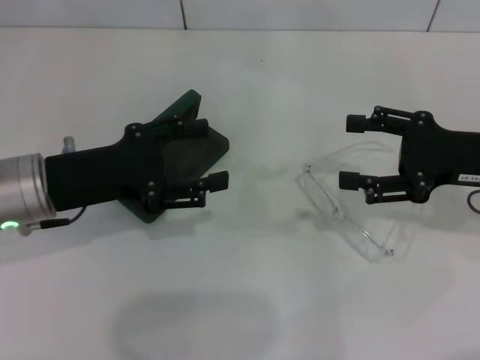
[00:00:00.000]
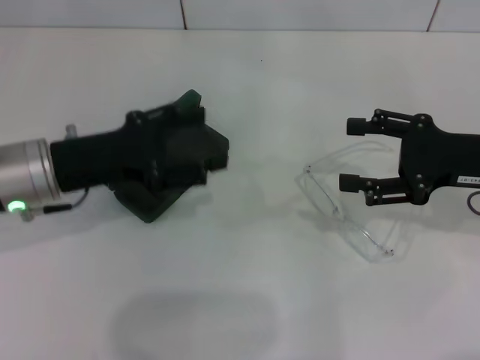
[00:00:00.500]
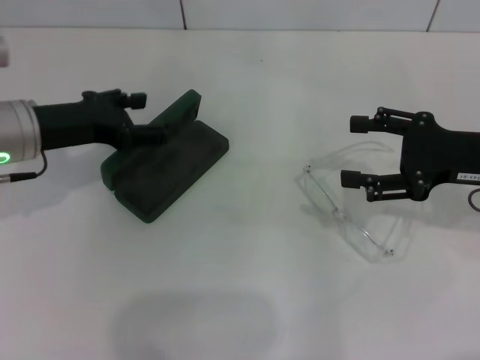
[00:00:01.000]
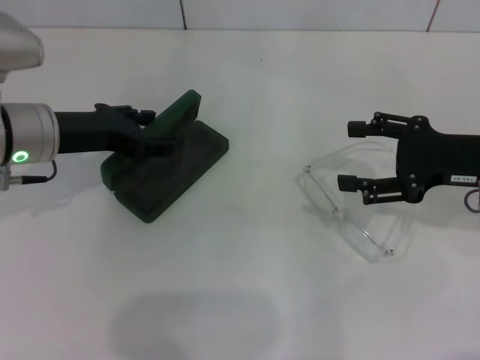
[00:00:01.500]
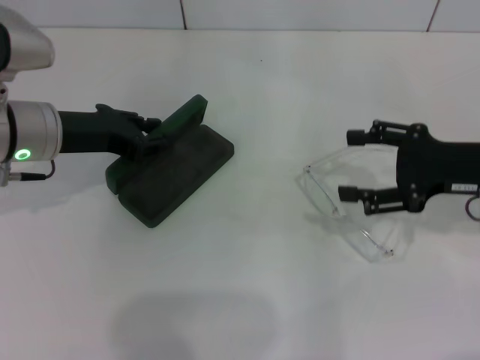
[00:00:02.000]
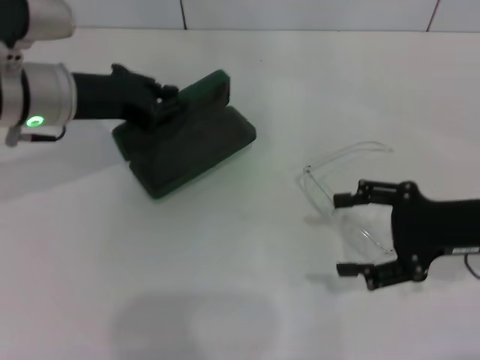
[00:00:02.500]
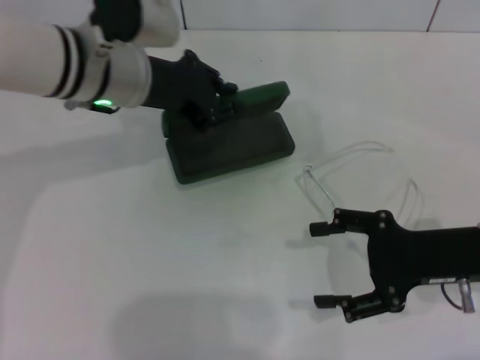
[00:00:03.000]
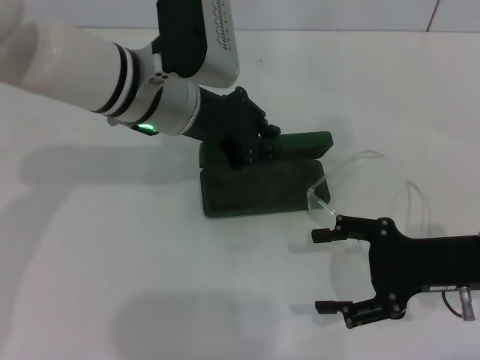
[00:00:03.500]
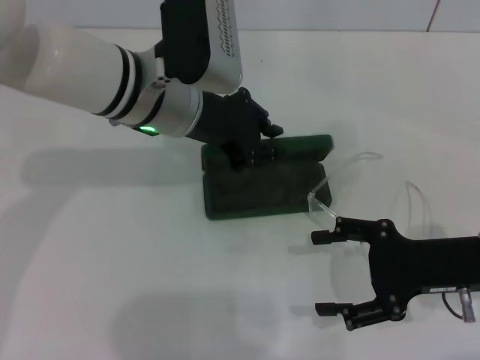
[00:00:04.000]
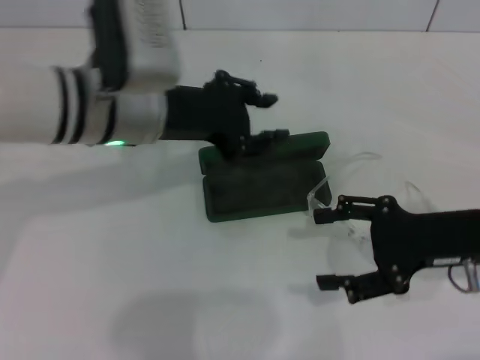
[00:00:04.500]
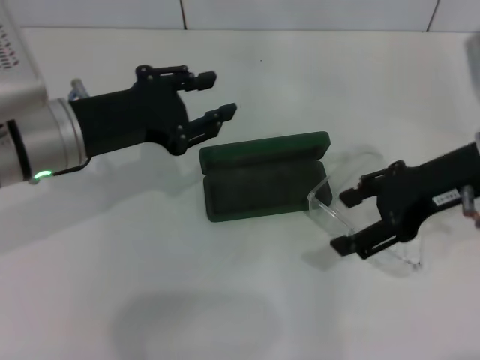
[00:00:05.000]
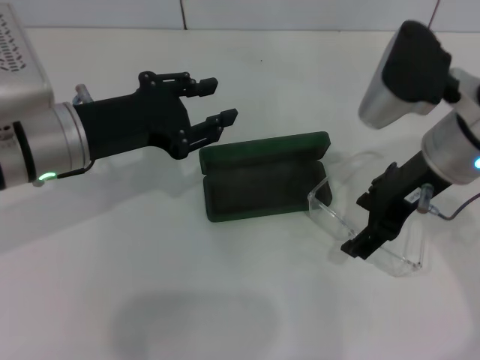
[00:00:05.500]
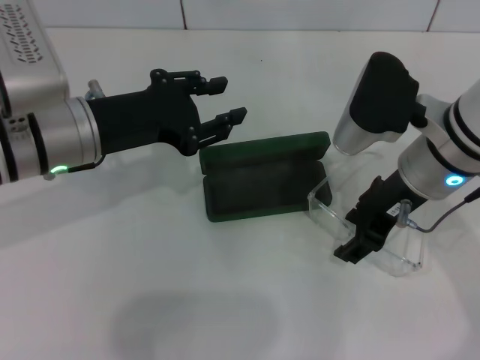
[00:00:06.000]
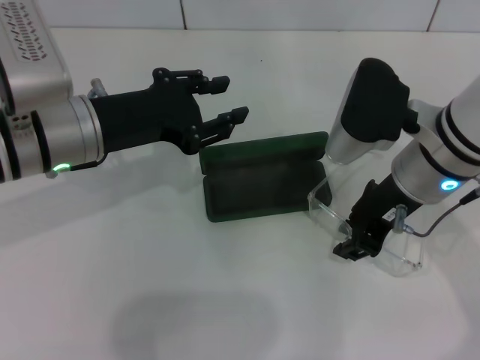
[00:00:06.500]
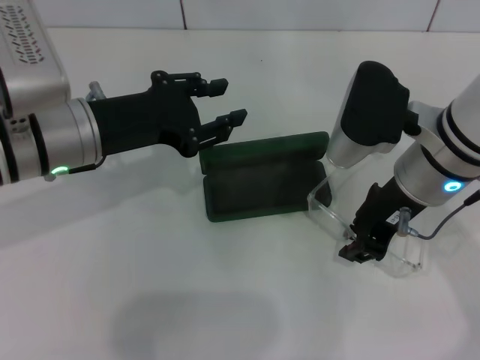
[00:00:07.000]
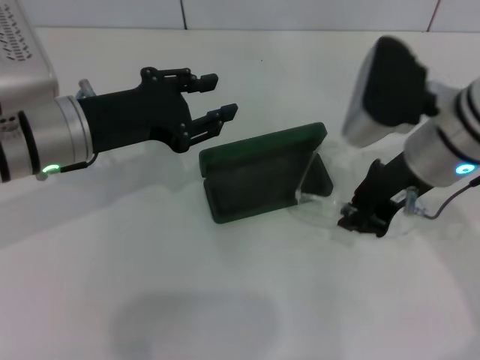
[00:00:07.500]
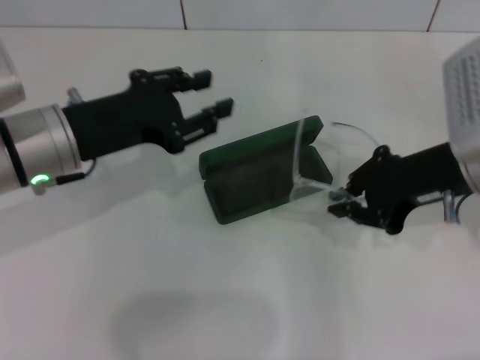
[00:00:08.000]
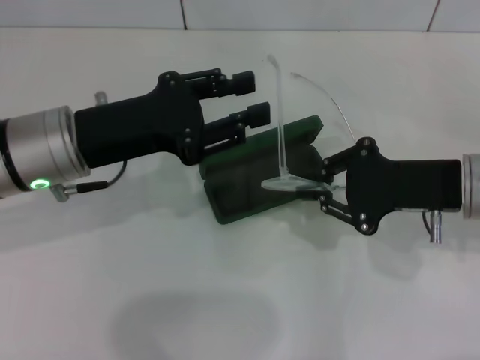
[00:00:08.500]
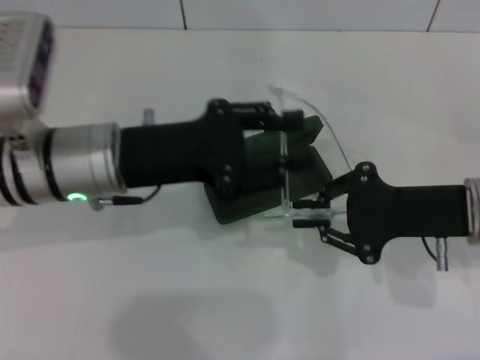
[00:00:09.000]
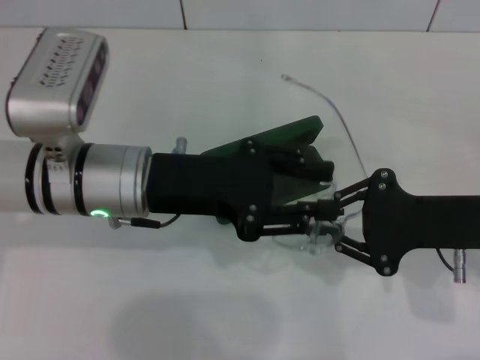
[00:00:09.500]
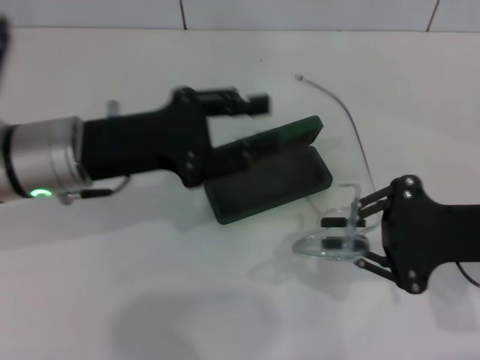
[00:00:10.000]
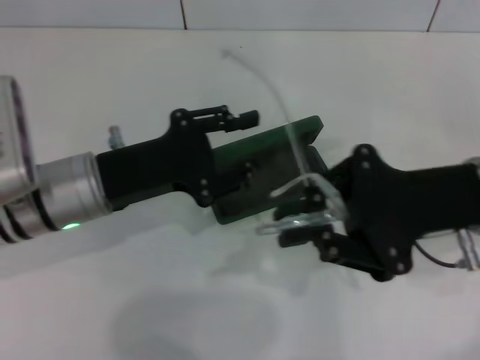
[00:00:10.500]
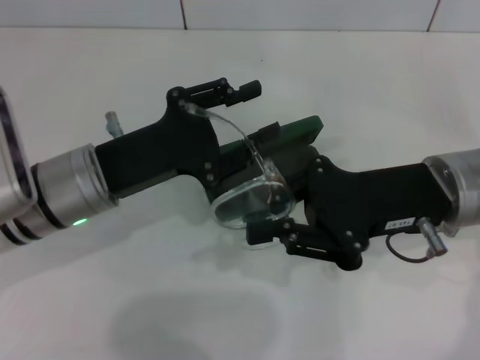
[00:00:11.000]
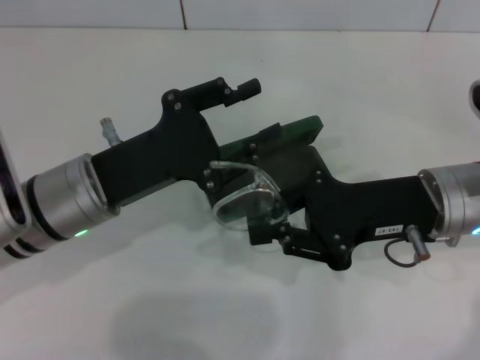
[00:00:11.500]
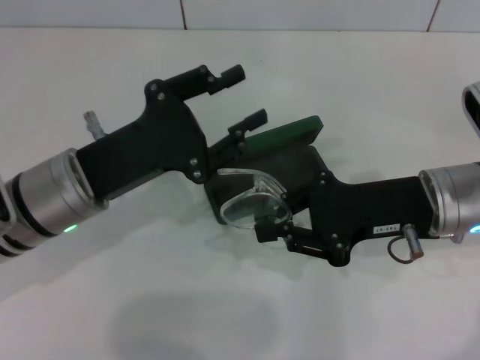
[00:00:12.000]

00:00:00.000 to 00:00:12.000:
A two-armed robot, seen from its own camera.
Step, 00:00:00.000 to 00:00:01.500: Grab the glasses case with your left hand.
Step, 00:00:02.000 to 00:00:04.000: Place the glasses case in the center of the table with your left hand.
Step, 00:00:04.500 to 00:00:07.000: Grab the eyeglass frame with your right hand.
Step, 00:00:07.500 to 00:00:11.500: Fold the frame with your left hand.
00:00:00.000 to 00:00:02.000: The left gripper goes roughly 5 cm forward, and closes up.
00:00:02.000 to 00:00:04.000: The right gripper goes some 5 cm backward. Meanwhile the left gripper shifts approximately 15 cm to the right.
00:00:04.000 to 00:00:06.000: The right gripper heads to the left, upward and forward, covering roughly 15 cm. The left gripper goes some 10 cm to the left.
00:00:06.000 to 00:00:08.000: The right gripper is displaced to the right by roughly 5 cm, and closes its fingers.
00:00:08.000 to 00:00:10.000: The right gripper shifts roughly 5 cm backward.
00:00:10.000 to 00:00:12.000: The right gripper is displaced to the left by approximately 5 cm.

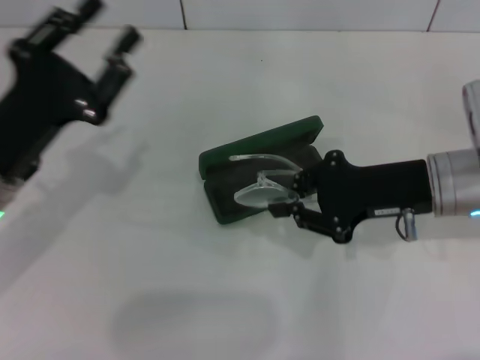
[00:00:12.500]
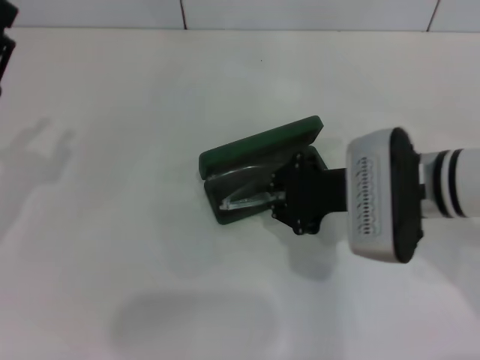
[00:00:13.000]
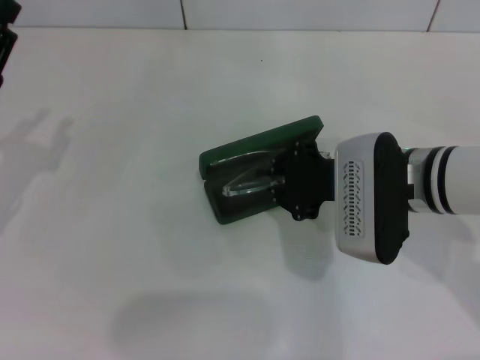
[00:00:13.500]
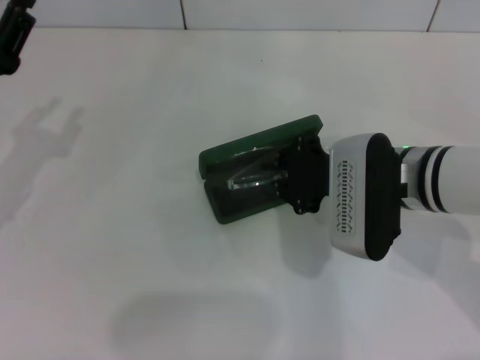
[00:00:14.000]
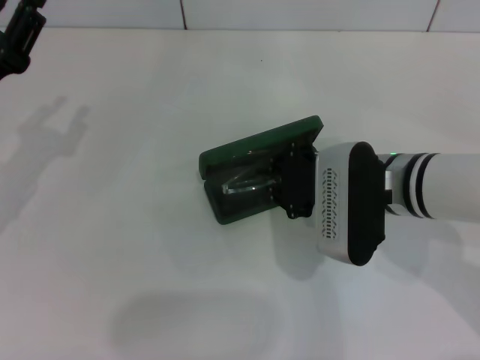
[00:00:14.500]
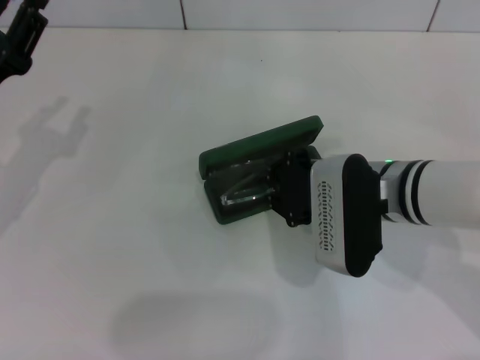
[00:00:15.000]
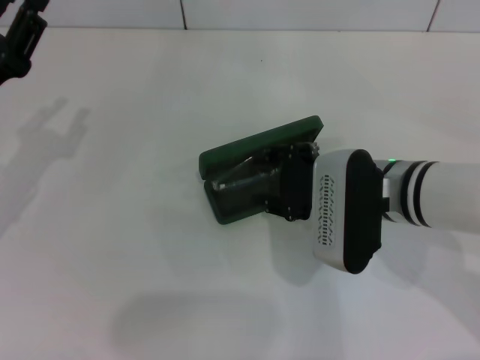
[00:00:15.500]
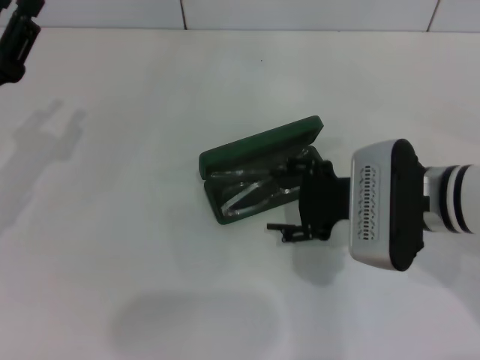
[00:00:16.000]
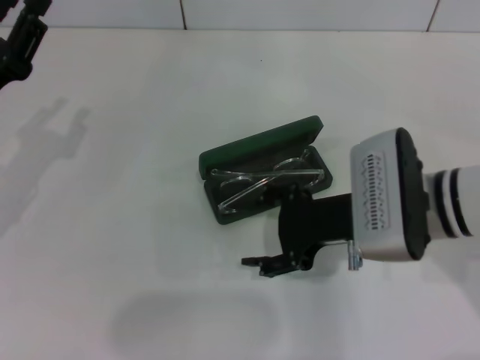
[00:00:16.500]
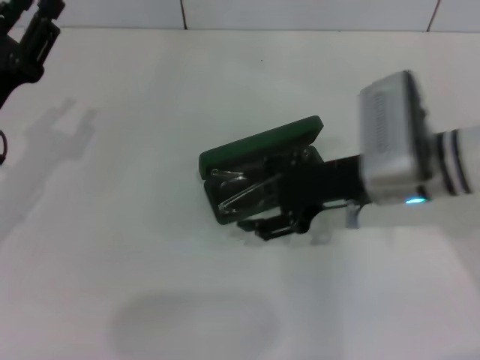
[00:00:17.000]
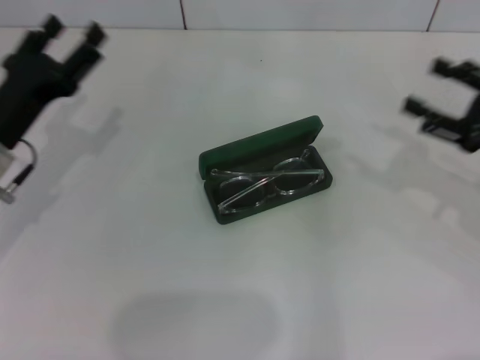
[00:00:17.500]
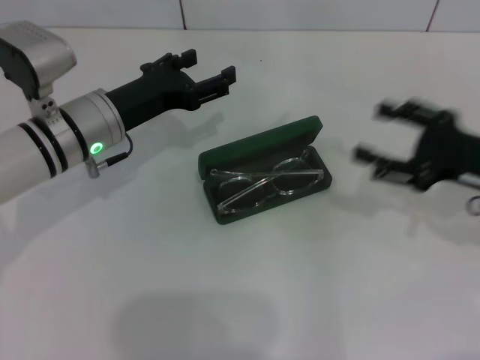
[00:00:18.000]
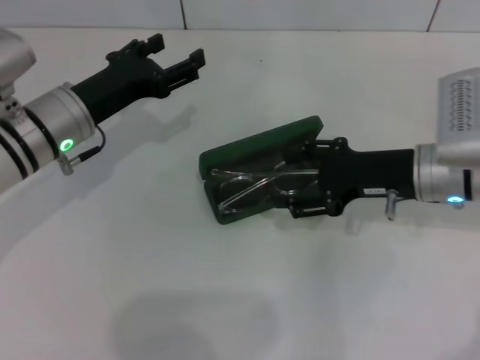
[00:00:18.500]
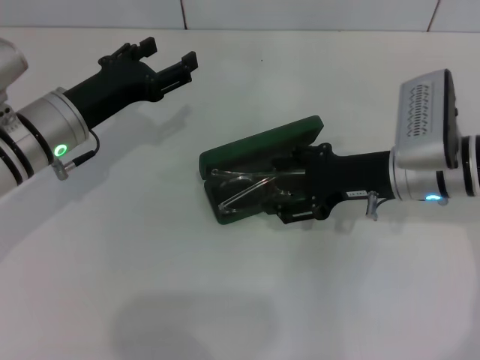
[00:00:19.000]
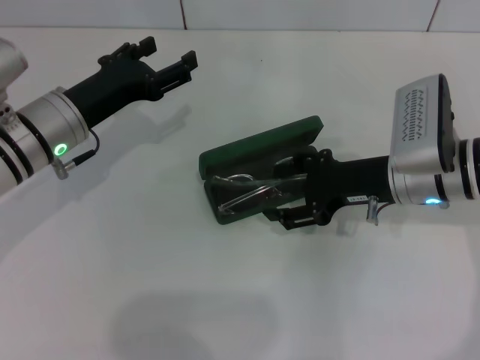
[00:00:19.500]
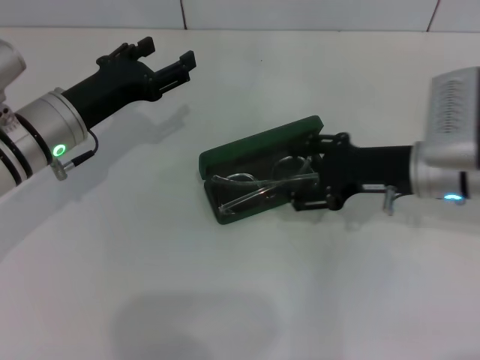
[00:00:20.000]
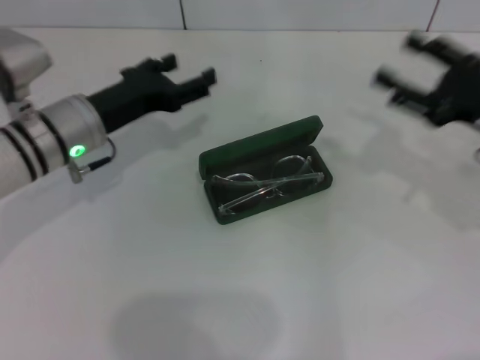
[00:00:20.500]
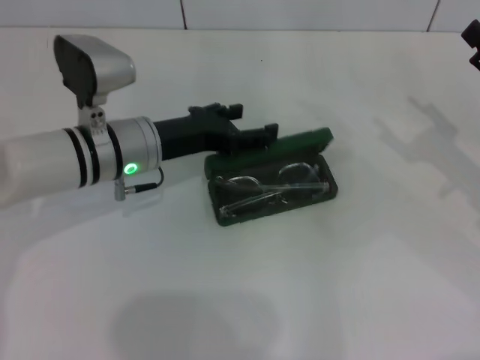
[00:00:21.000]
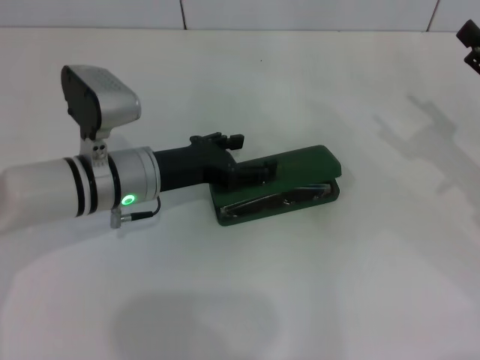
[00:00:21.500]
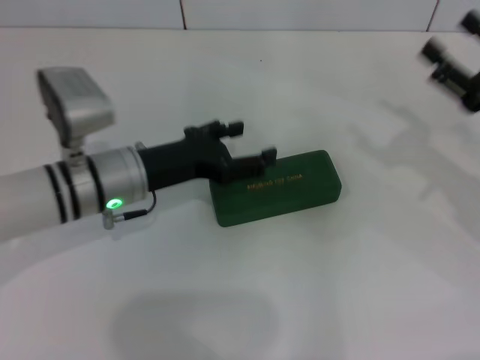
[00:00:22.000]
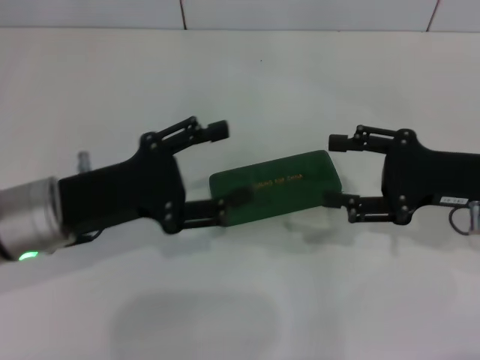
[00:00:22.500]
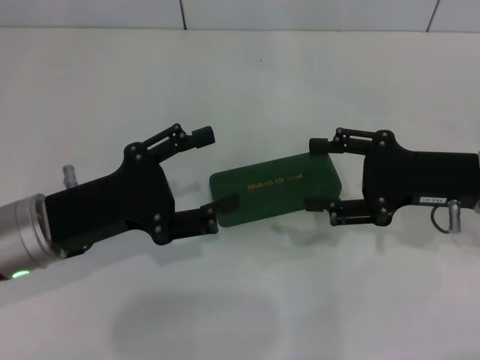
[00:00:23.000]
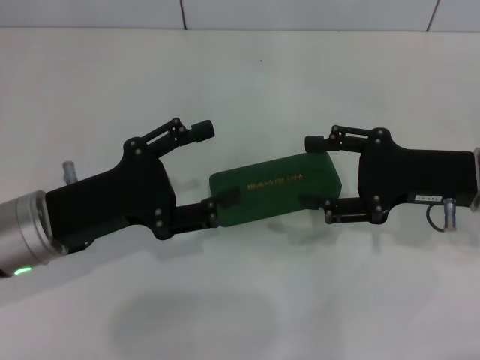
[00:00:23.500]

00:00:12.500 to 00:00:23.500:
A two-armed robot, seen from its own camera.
Step, 00:00:12.500 to 00:00:16.000: Put the glasses into the case with your right hand.
Step, 00:00:17.000 to 00:00:21.500: Close the glasses case with your left hand.
00:00:12.500 to 00:00:14.500: The left gripper ends up approximately 5 cm from where it was; the right gripper goes approximately 5 cm to the left.
00:00:14.500 to 00:00:16.000: The right gripper opens.
00:00:16.000 to 00:00:18.000: The left gripper is displaced to the right and forward by about 15 cm, and opens its fingers. Meanwhile the right gripper moves to the right, roughly 15 cm.
00:00:18.000 to 00:00:20.000: The right gripper moves to the left, about 10 cm.
00:00:20.000 to 00:00:21.500: The right gripper goes roughly 10 cm to the right. The left gripper moves to the right, approximately 5 cm.
00:00:21.500 to 00:00:23.500: The right gripper moves to the left, approximately 10 cm, while the left gripper shifts approximately 10 cm backward and to the left.
